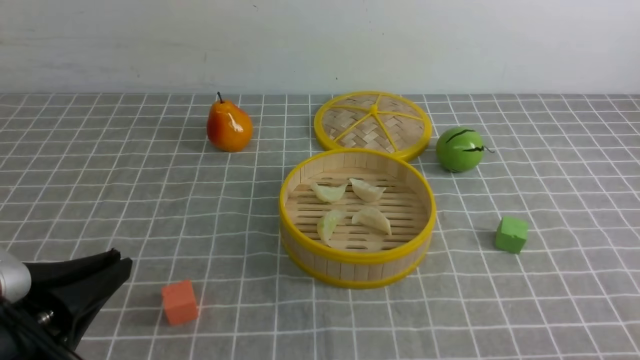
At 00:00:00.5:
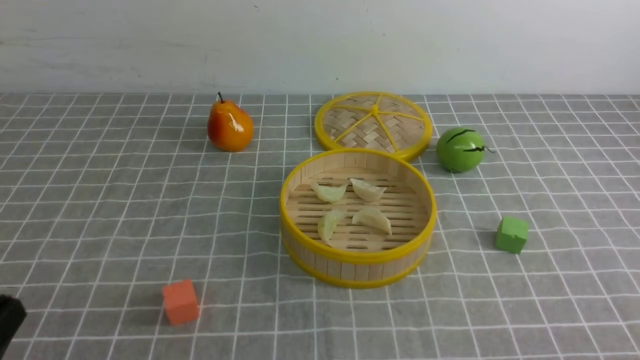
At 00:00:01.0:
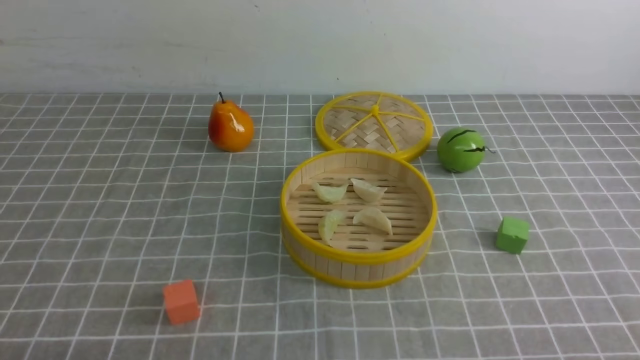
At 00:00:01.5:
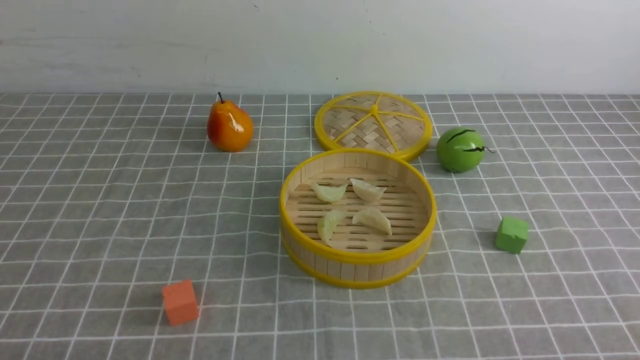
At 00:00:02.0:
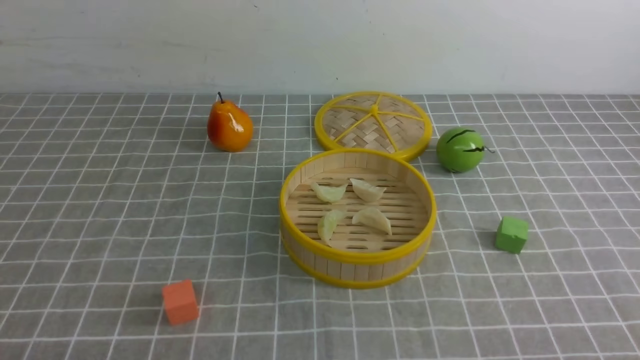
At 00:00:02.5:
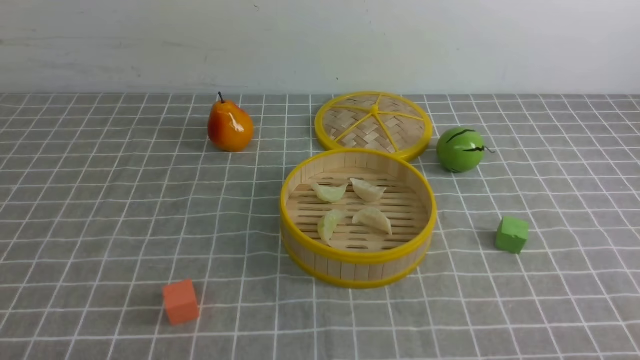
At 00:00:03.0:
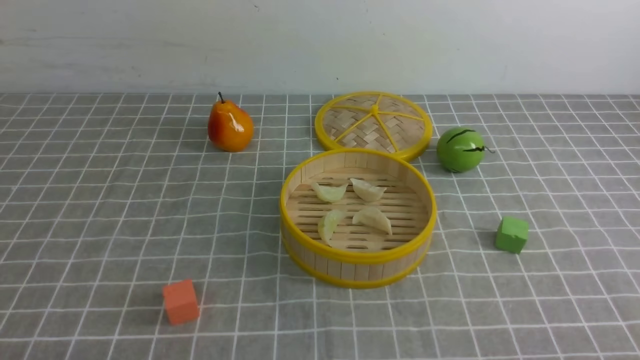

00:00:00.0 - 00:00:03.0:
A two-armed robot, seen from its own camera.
Task of the whole recording: put the dumplings into the steamer on the table with the grey tablecloth.
00:00:00.0 - 00:00:01.5: The left gripper goes approximately 10 cm downward and backward.
00:00:01.5 - 00:00:03.0: Neither gripper changes place.
